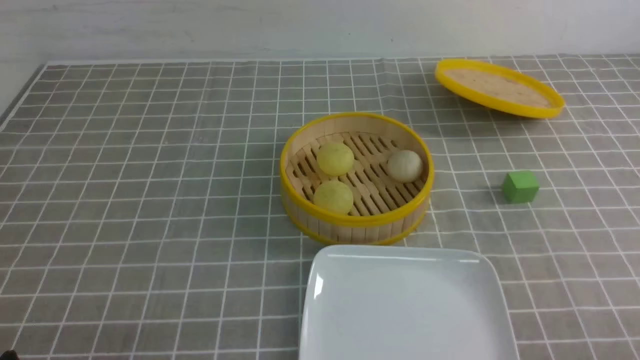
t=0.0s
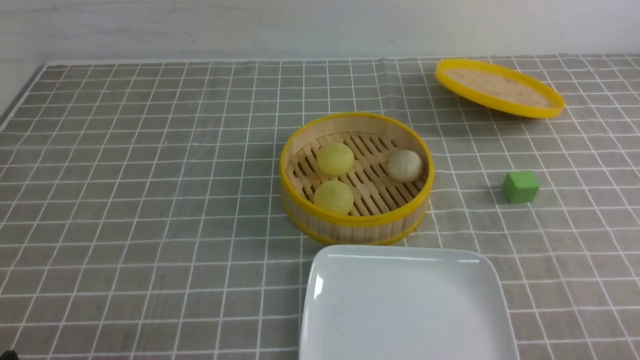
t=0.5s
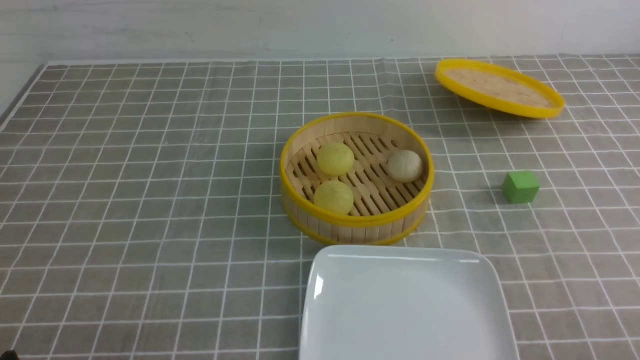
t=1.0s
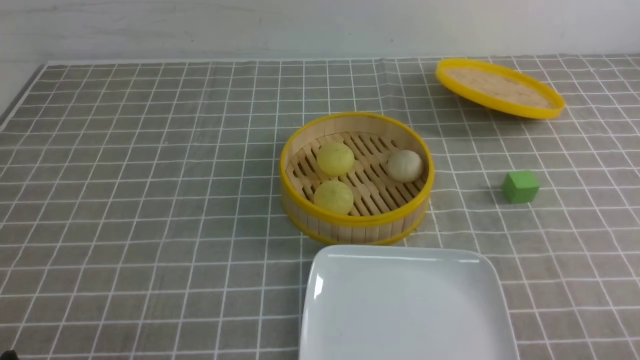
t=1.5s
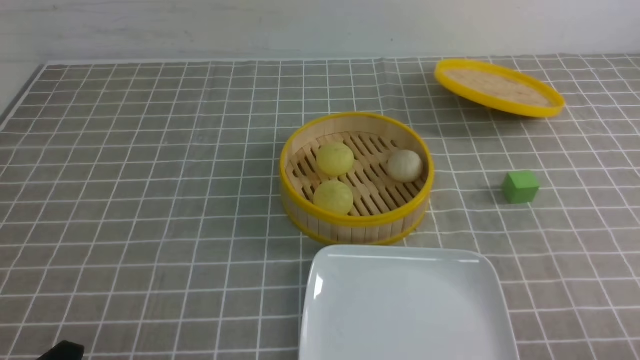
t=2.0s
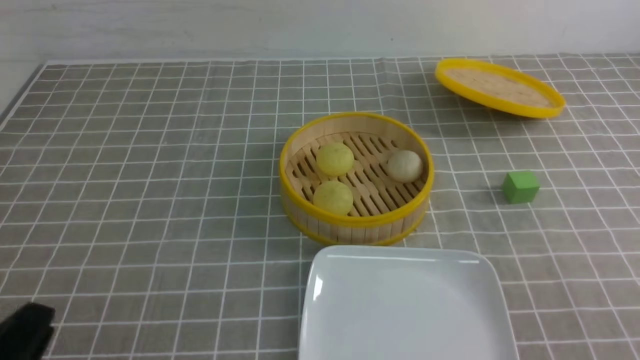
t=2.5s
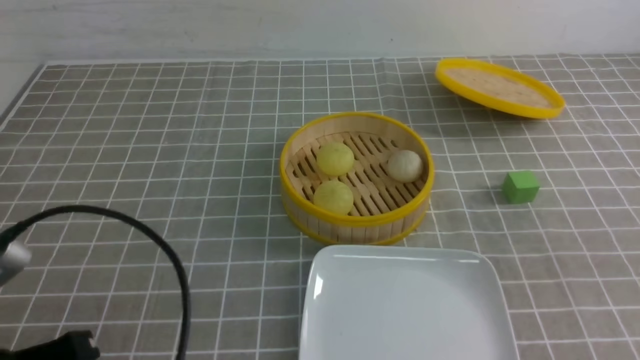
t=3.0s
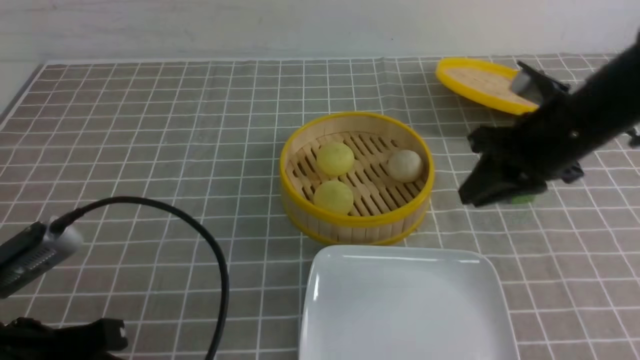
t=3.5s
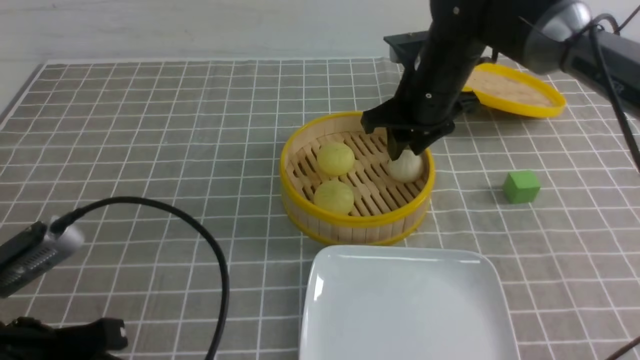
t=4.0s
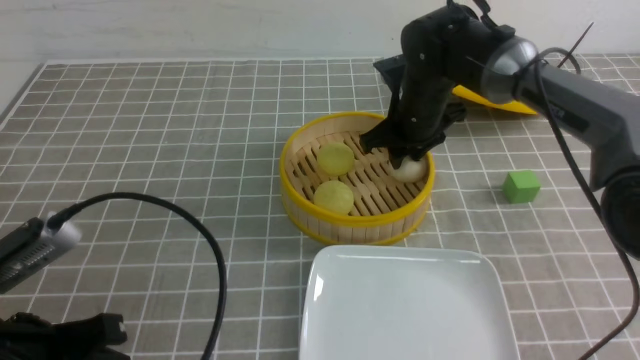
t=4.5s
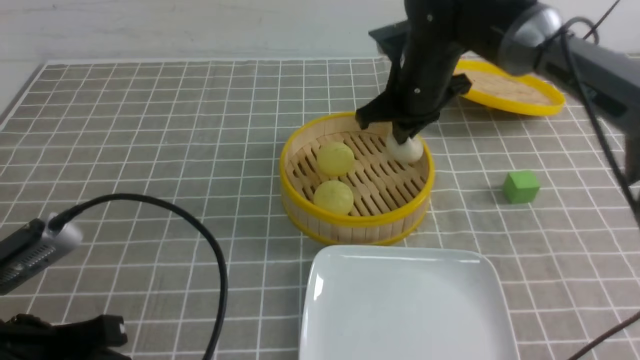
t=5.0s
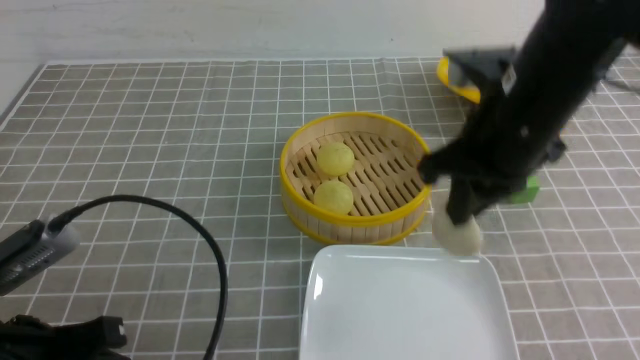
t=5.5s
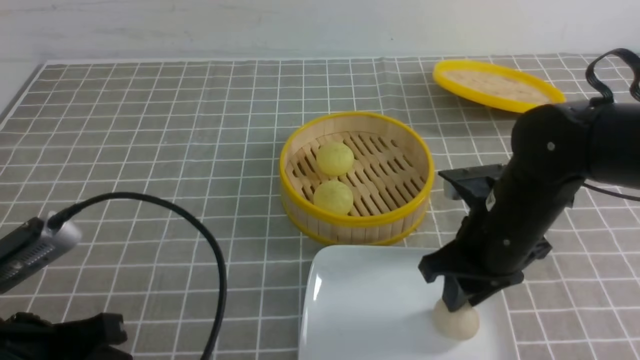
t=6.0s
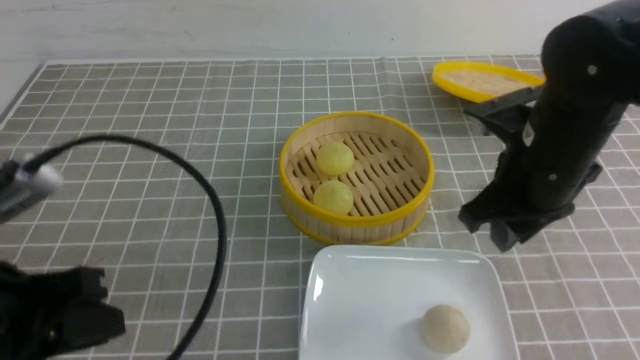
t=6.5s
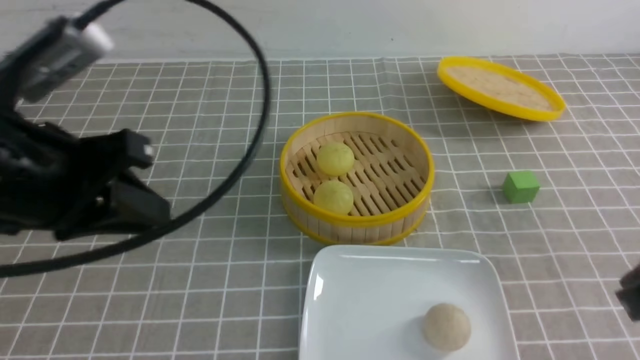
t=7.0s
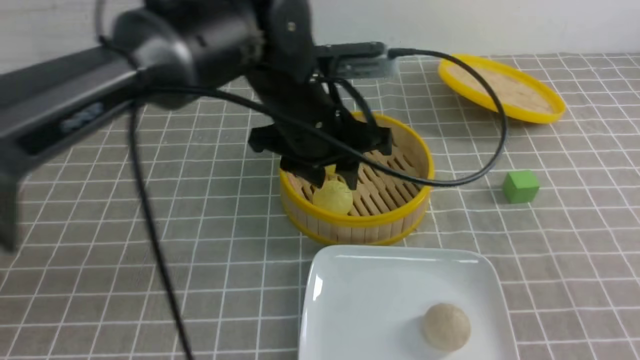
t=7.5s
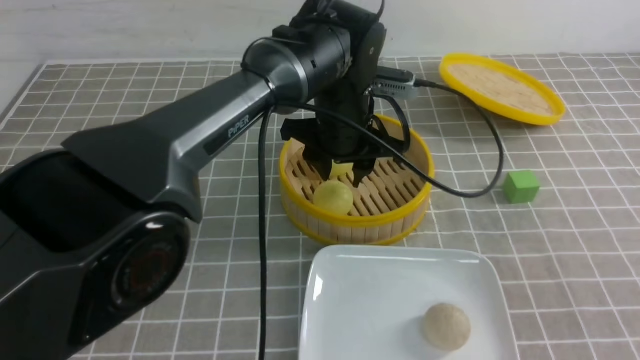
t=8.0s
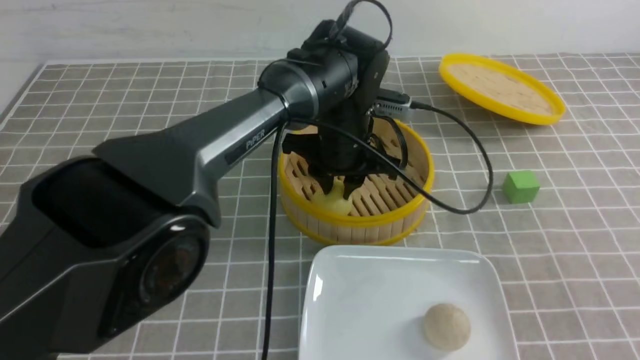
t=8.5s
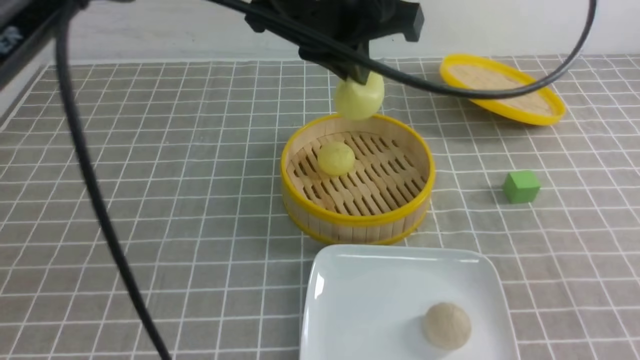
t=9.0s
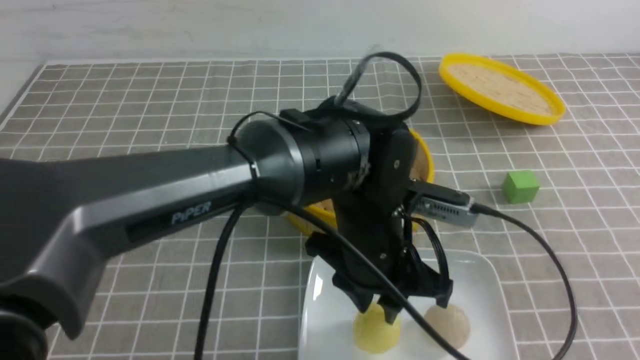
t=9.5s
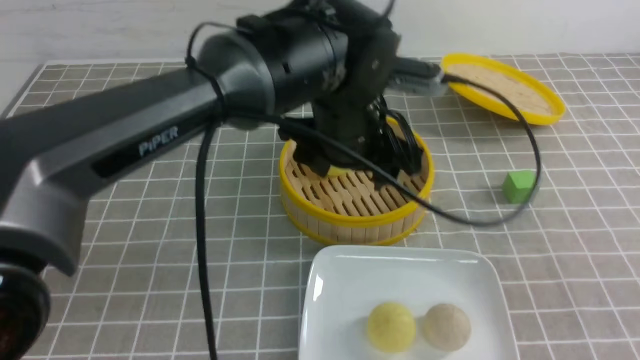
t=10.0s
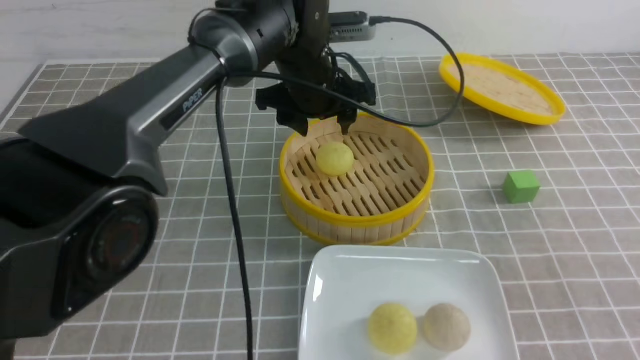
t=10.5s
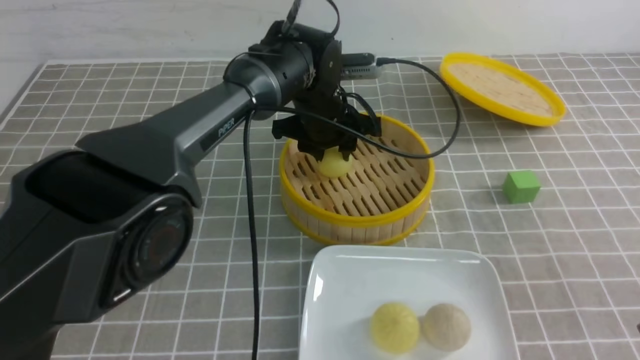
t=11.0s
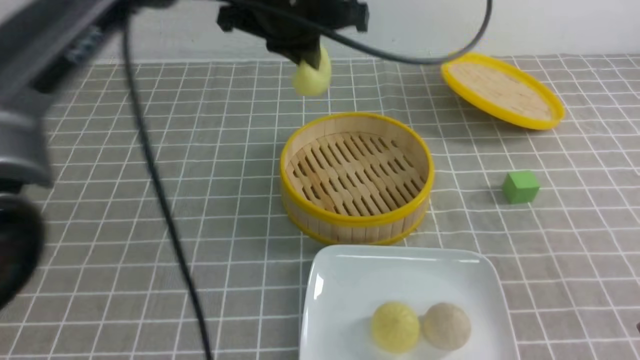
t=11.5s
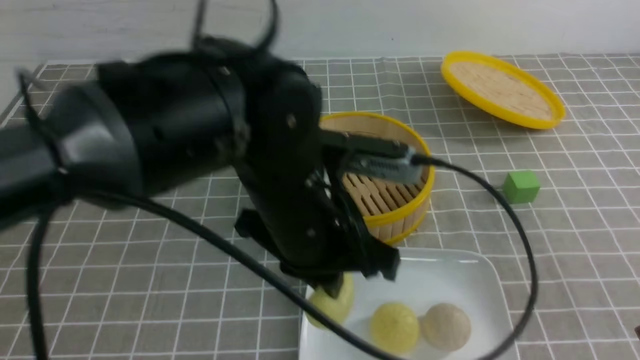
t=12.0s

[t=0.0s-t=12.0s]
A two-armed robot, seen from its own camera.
Step, t=0.0s to t=4.5s: use the right arm to grab the steamed stuffed bun that is closest to it.
Step, t=5.0s to t=6.0s: use the right arm to put the steamed stuffed bun into the plate.
Step, t=6.5s to t=8.5s: use the left arm to grab the steamed stuffed bun that is closest to it.
Step, t=9.0s to t=9.5s: use the left arm to put the steamed stuffed bun into the plate.
Step, t=10.0s to t=11.0s: use the left arm to grab the steamed stuffed bun that is closest to it.
t=2.0s to t=4.0s: The right gripper goes approximately 40 cm forward and to the left, and closes, then opens again. Meanwhile the left gripper heads upward and forward, covering roughly 10 cm.
t=4.0s to t=6.0s: The right gripper heads backward, covering approximately 15 cm, and closes and opens again.
t=6.0s to t=8.0s: The right gripper moves backward, to the right and upward, approximately 20 cm, and closes, while the left gripper is displaced forward and to the right by about 40 cm, and opens.
t=8.0s to t=10.0s: The left gripper heads backward, covering about 5 cm, and closes, then opens again.
t=10.0s to t=12.0s: The left gripper is displaced backward by some 10 cm, and closes up.

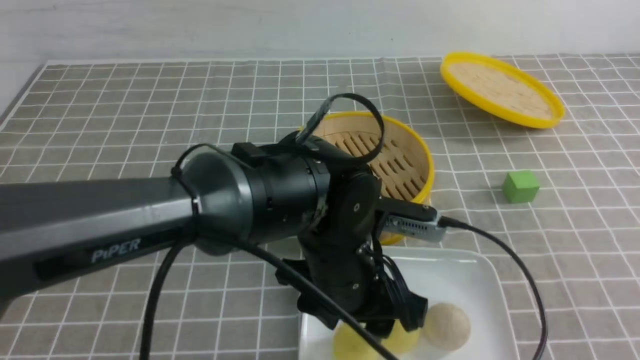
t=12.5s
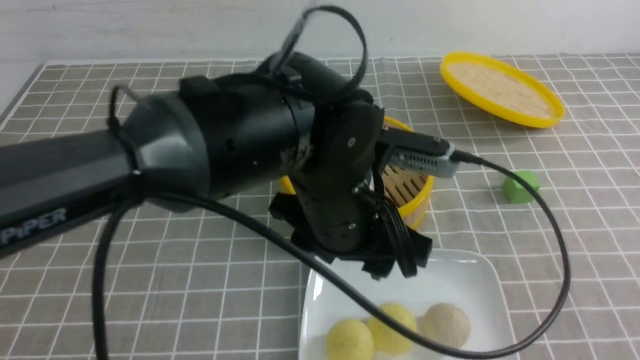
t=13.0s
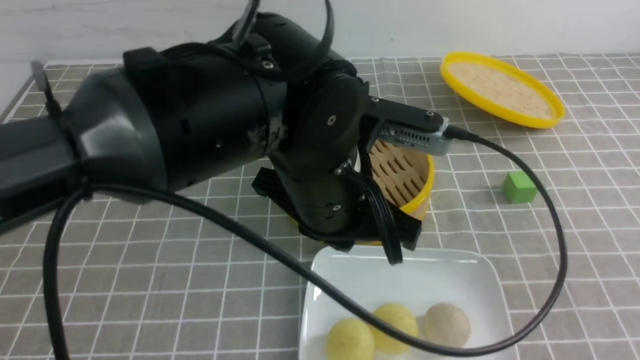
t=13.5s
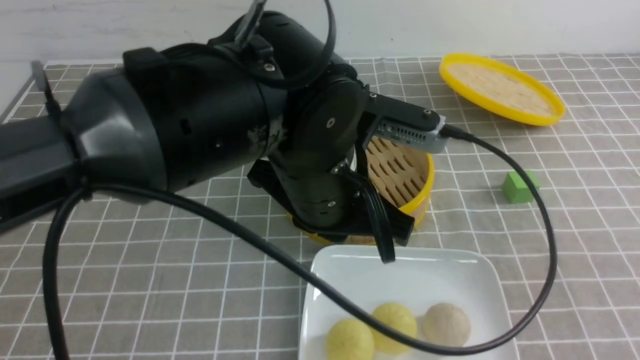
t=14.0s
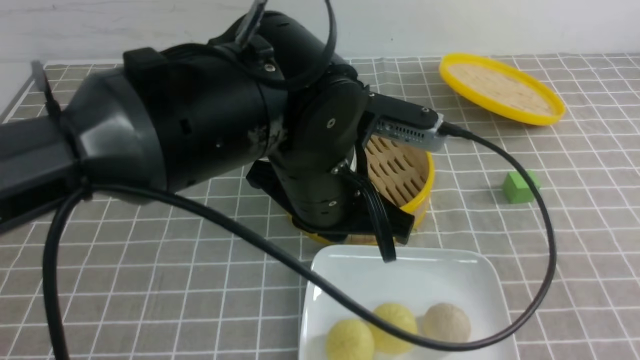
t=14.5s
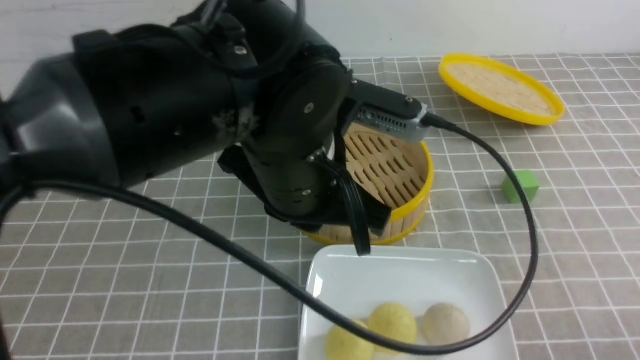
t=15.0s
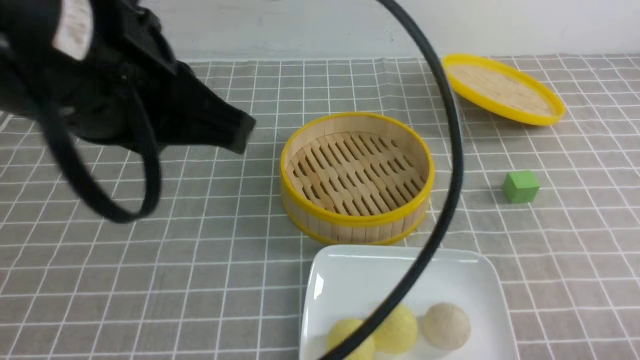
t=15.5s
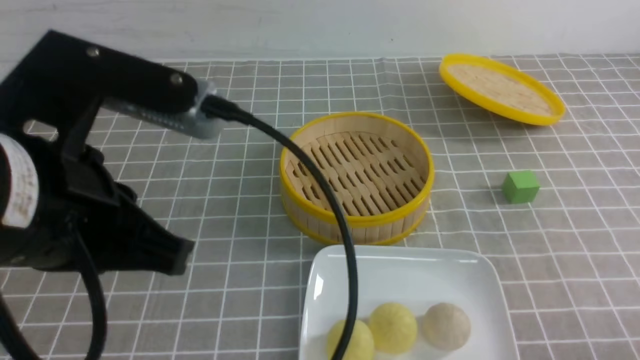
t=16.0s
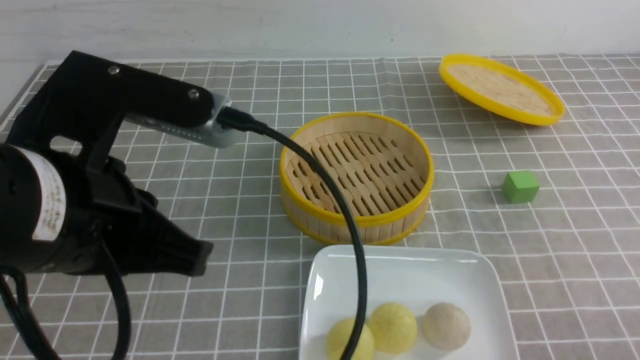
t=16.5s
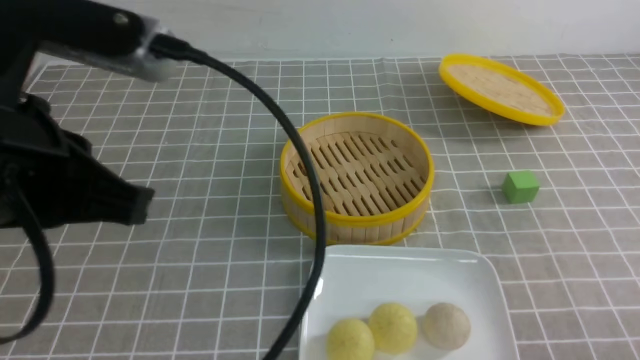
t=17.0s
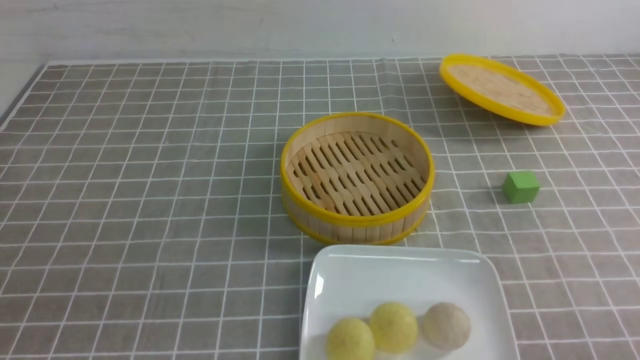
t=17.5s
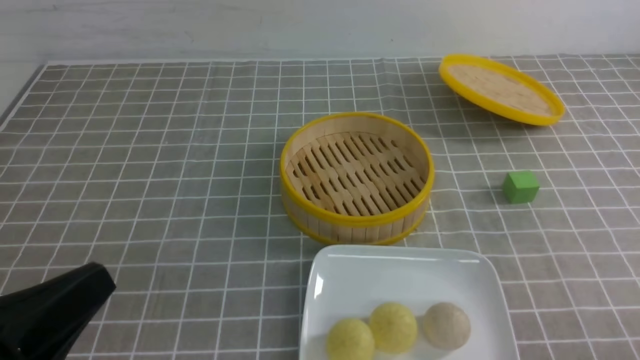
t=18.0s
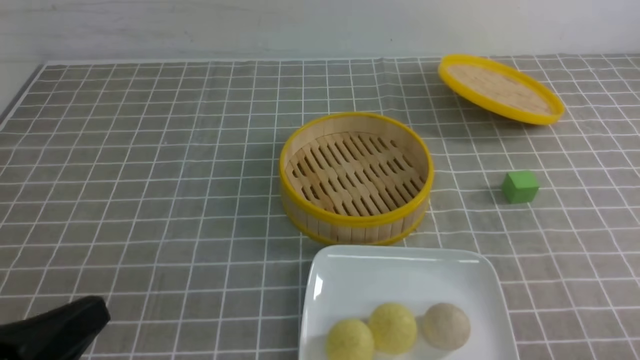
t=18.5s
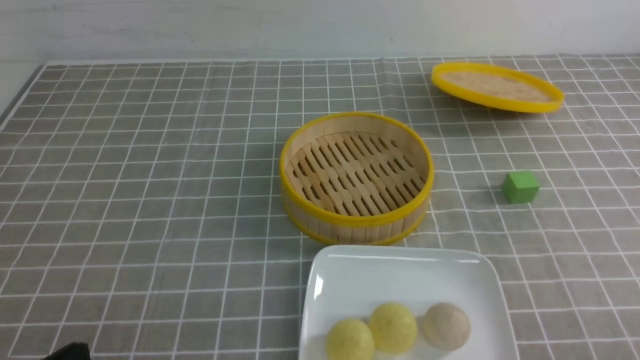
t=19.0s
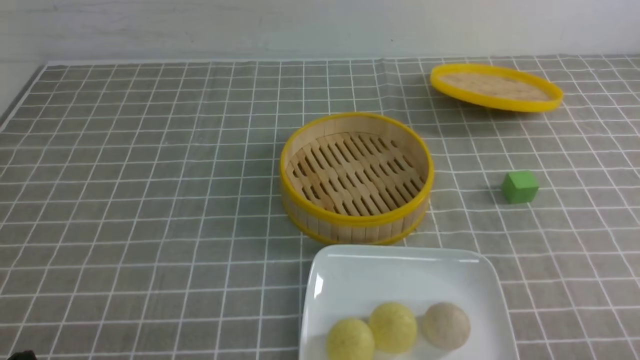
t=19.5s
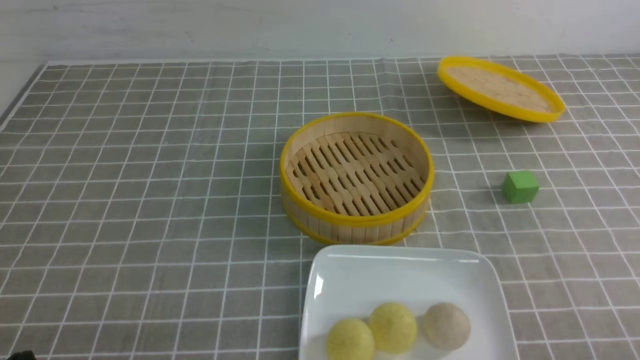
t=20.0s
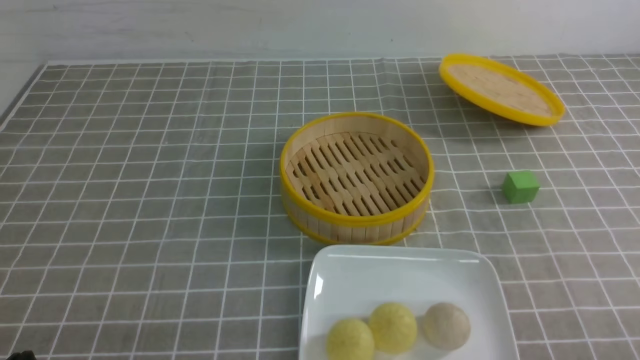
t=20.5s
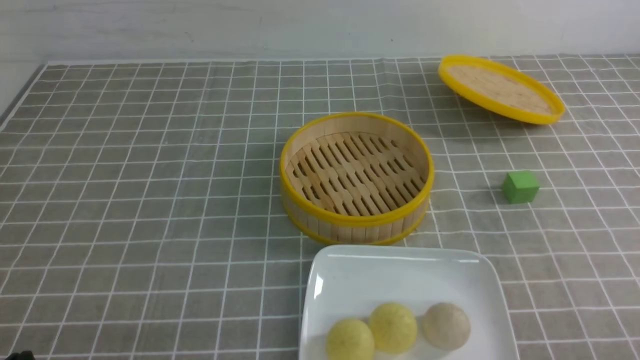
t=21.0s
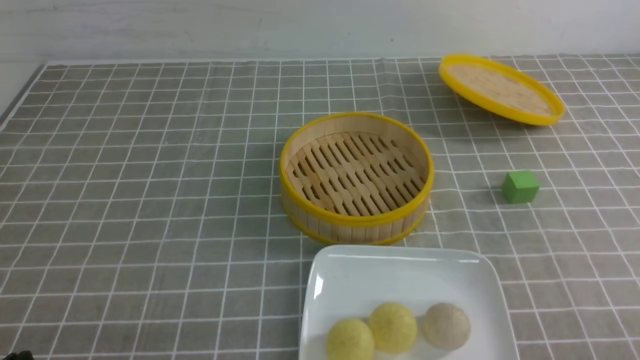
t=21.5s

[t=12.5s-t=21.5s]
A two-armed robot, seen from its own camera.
t=12.5s to t=14.5s: The left gripper moves upward, roughly 10 cm, and closes its fingers, while the right gripper ends up approximately 5 cm from where it was.
t=14.5s to t=17.0s: The left gripper travels to the left, backward and upward by about 20 cm, while the right gripper goes about 10 cm downward.
t=17.0s to t=19.5s: The left gripper moves downward, approximately 25 cm.
t=19.5s to t=21.5s: The two grippers keep their place.
